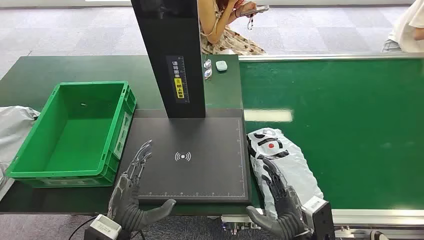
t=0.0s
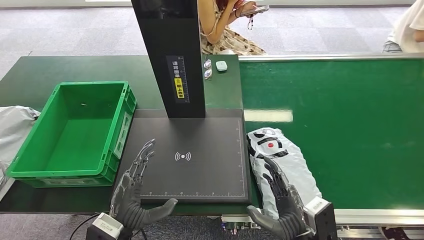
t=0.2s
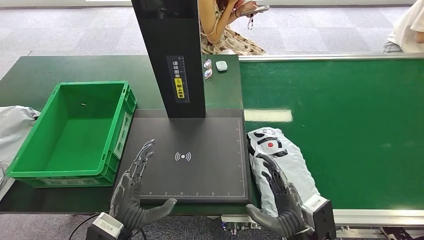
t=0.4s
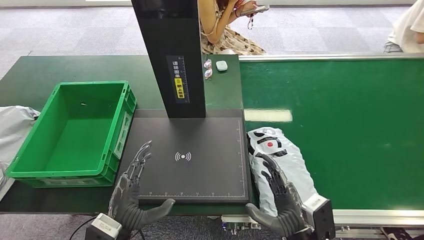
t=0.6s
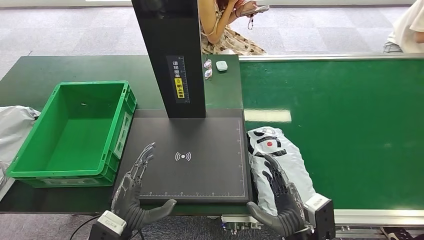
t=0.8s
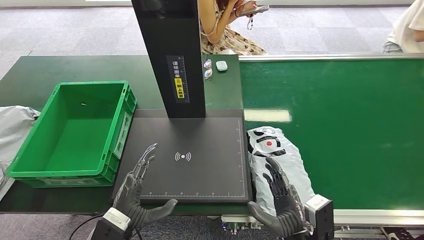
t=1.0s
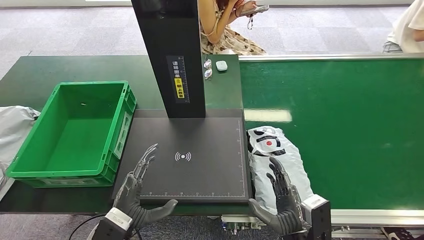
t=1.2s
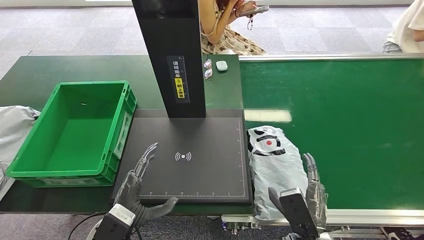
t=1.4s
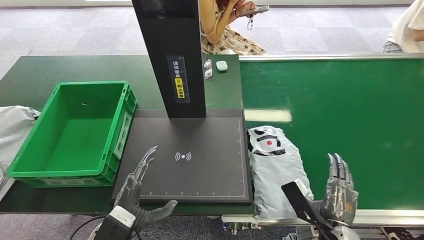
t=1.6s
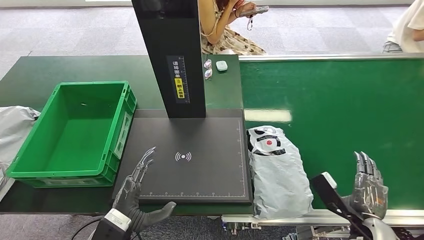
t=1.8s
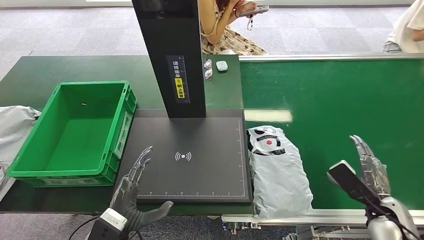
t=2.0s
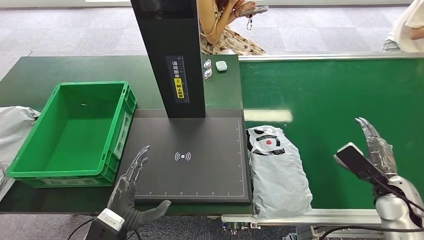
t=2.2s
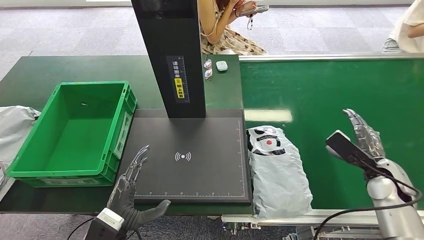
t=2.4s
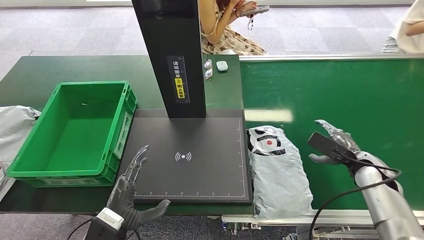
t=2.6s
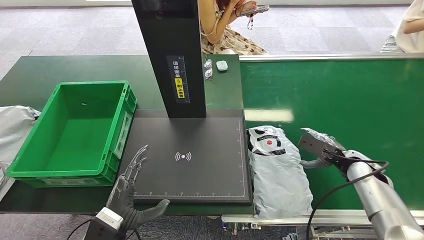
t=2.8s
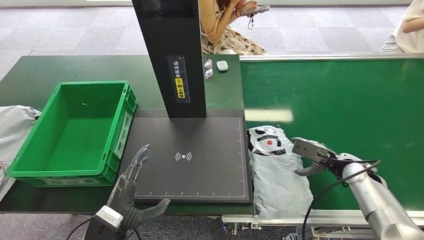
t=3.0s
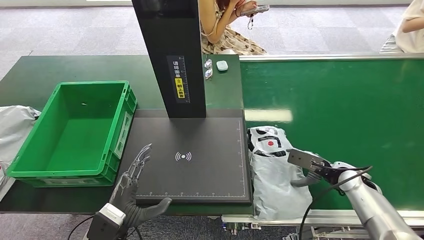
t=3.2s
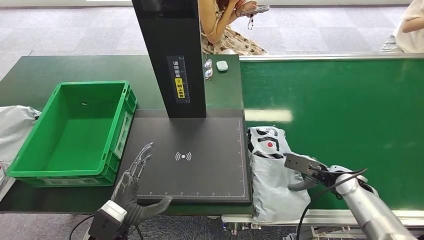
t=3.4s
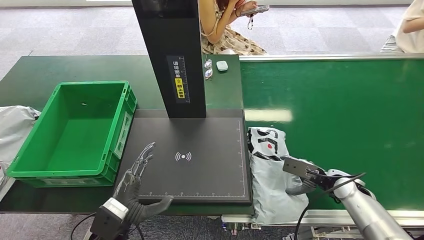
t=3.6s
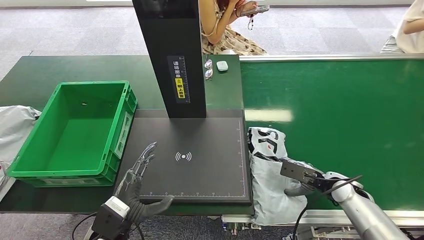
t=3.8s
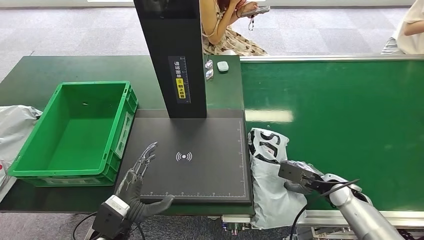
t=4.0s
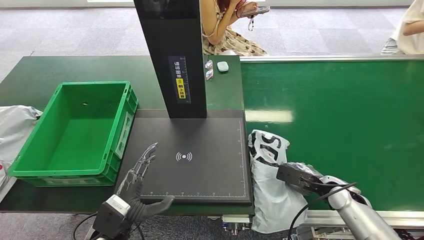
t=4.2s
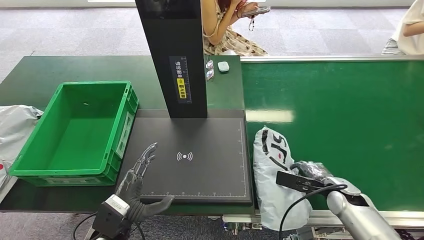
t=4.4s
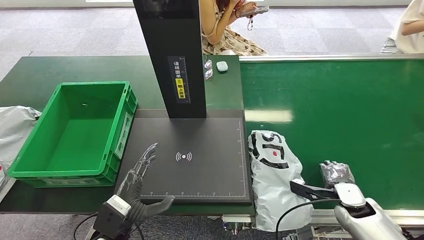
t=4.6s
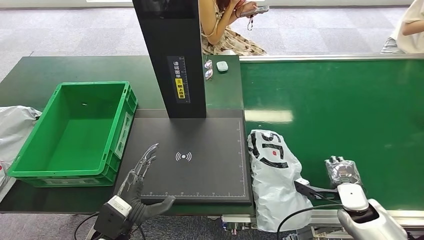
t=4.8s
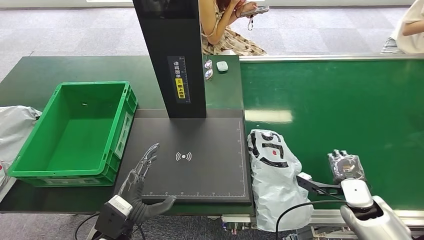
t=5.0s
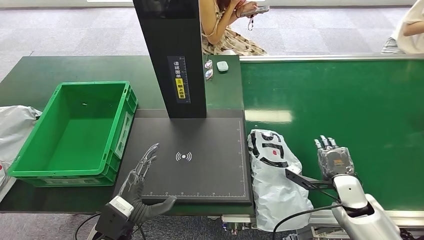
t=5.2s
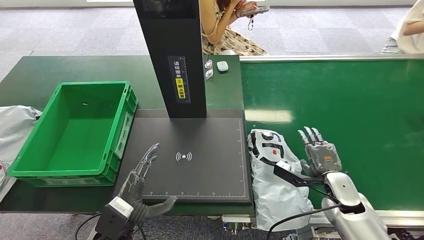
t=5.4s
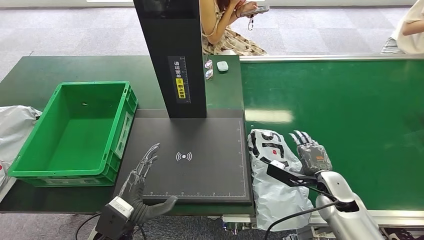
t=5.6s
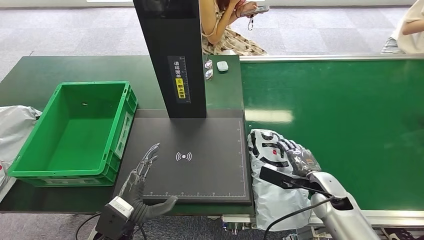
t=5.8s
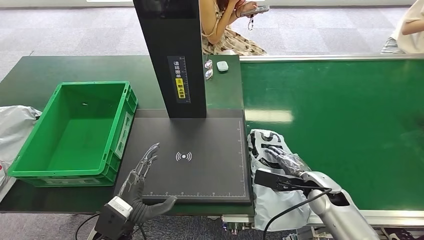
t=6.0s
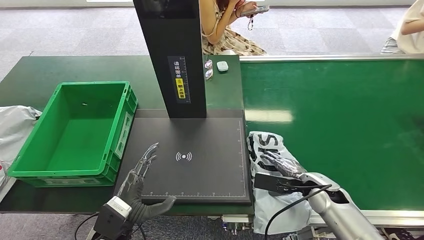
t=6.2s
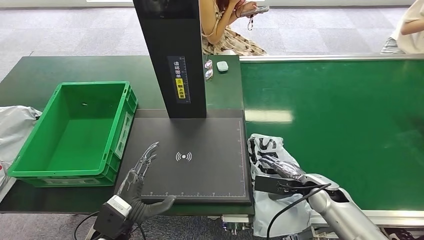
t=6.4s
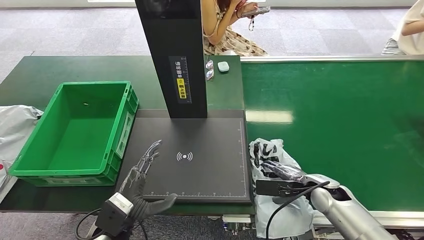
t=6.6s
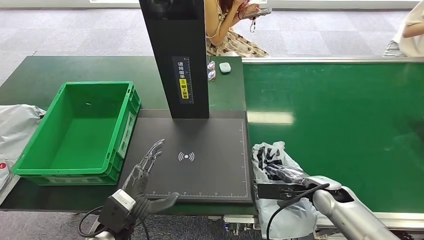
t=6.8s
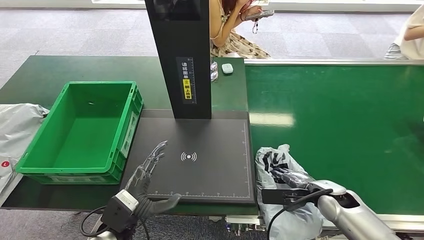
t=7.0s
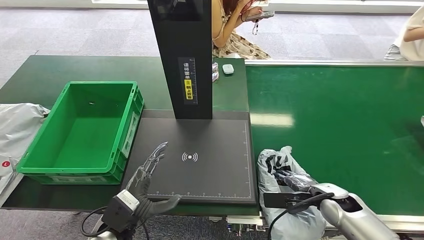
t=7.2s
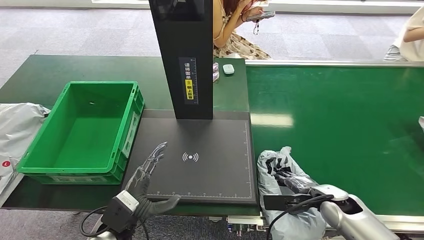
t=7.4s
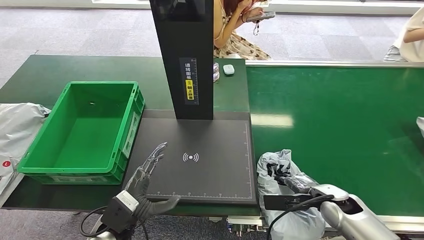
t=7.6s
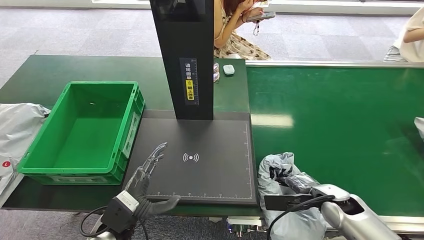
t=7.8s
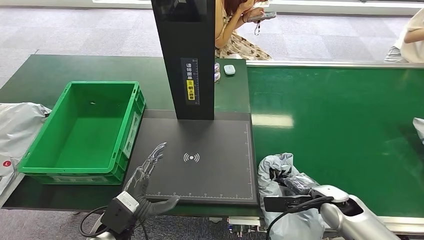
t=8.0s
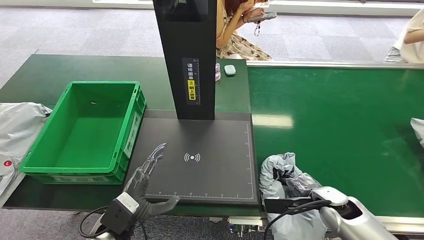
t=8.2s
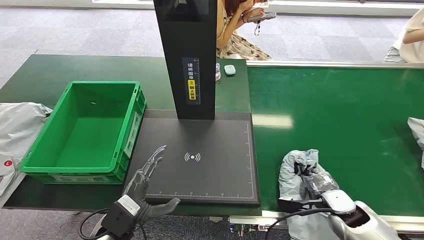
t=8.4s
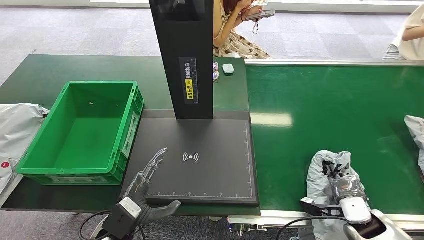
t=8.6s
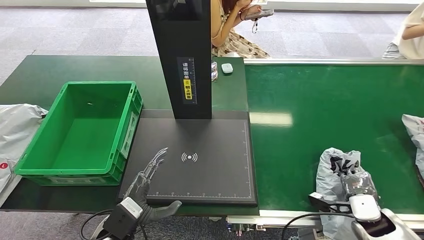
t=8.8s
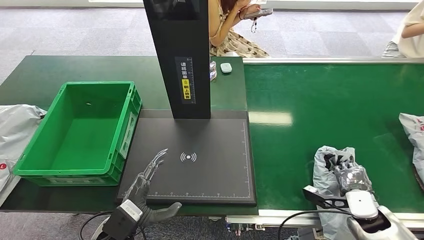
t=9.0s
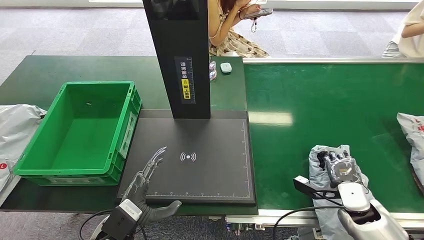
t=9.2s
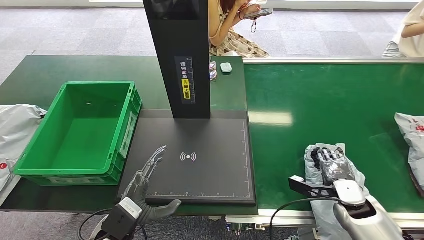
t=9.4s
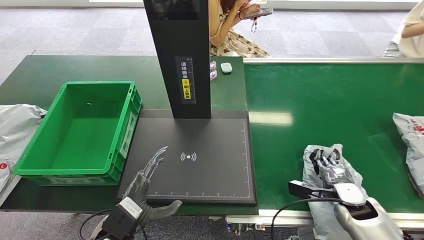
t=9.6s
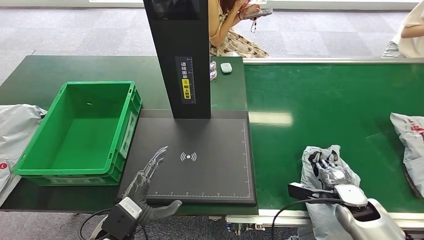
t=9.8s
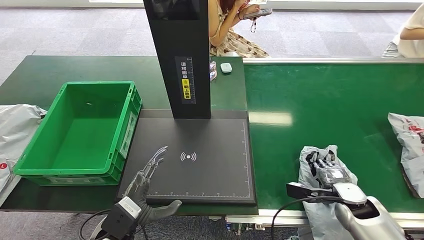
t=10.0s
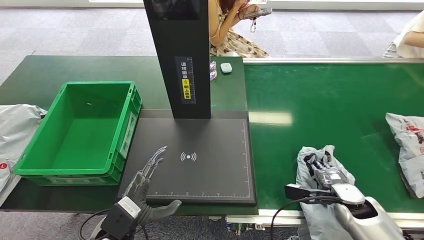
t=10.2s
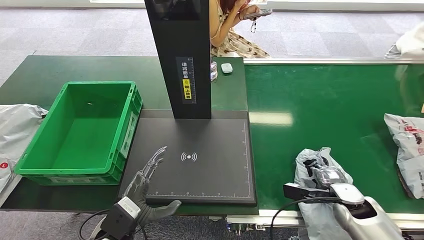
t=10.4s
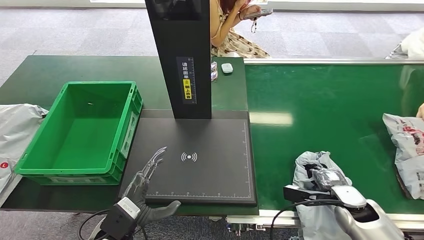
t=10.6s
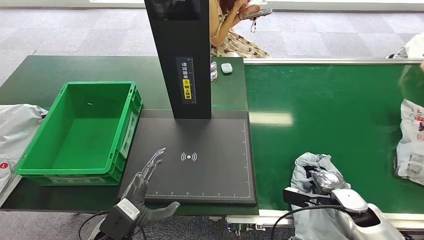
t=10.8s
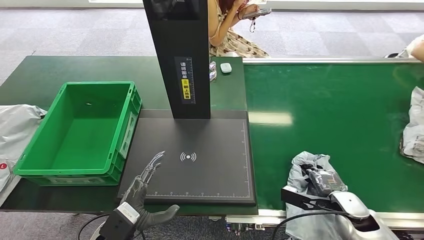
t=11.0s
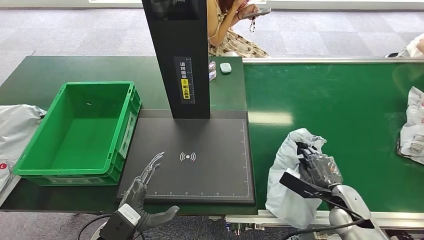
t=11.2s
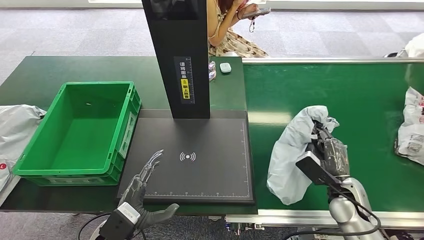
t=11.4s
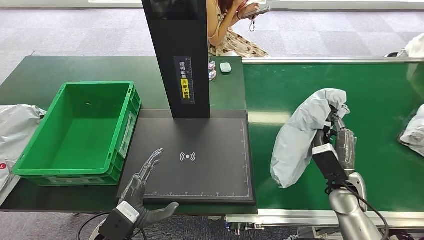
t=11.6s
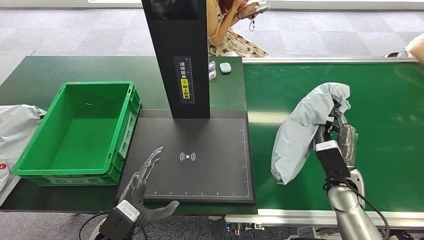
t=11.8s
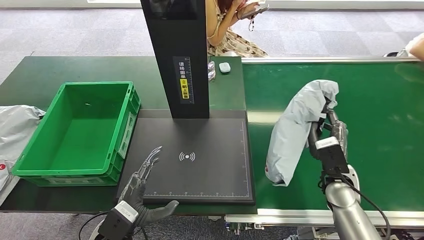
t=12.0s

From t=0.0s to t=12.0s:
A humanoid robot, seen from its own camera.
Step, from t=0.0s to t=11.8s: Pick up the package from the conveyor belt.
From t=1.6s to t=3.0s: The right hand travels forward and to the right by approximately 25 cm.
From t=3.0s to t=4.4s: The right hand is displaced backward by roughly 5 cm.
From t=4.4s to t=6.0s: The right hand heads to the left, covering approximately 5 cm.

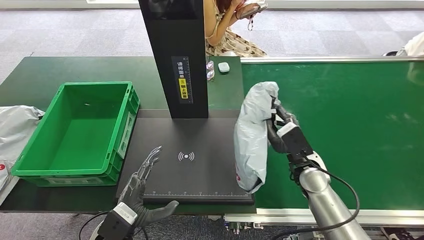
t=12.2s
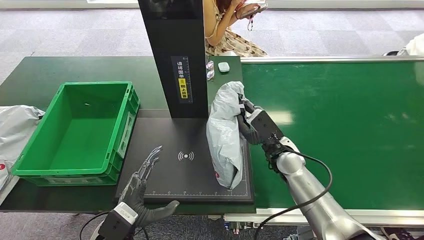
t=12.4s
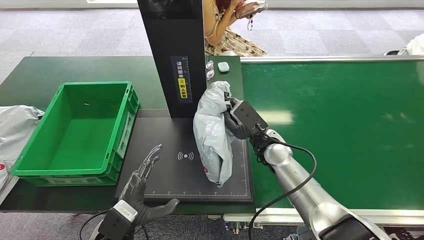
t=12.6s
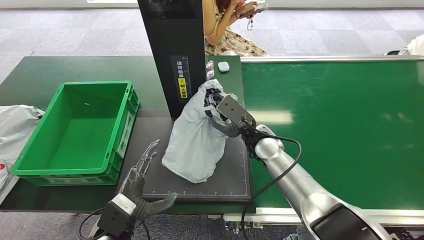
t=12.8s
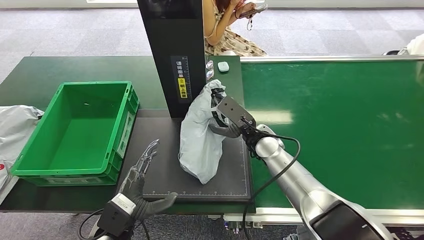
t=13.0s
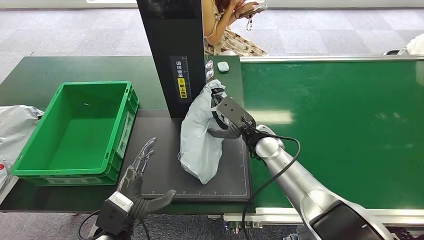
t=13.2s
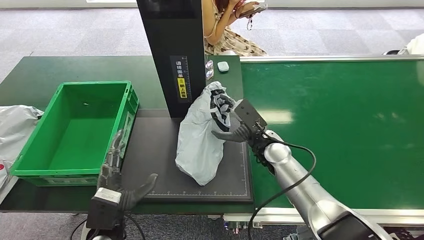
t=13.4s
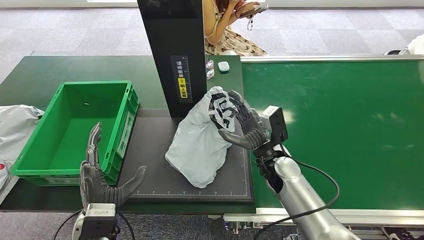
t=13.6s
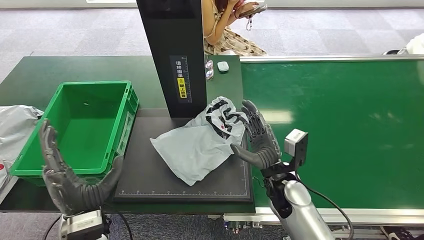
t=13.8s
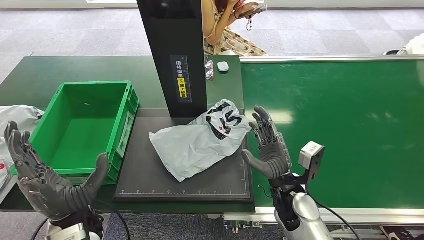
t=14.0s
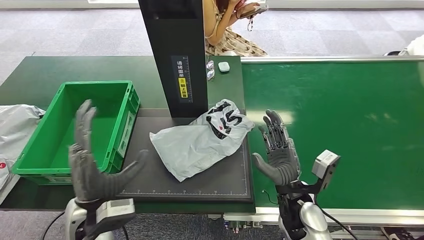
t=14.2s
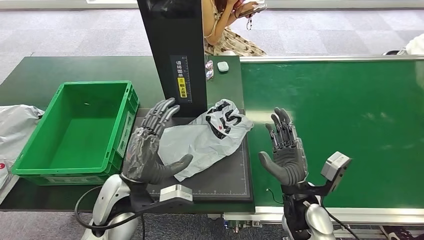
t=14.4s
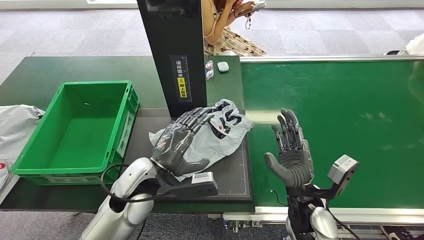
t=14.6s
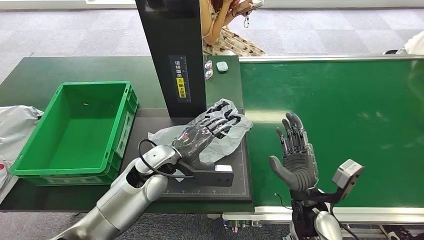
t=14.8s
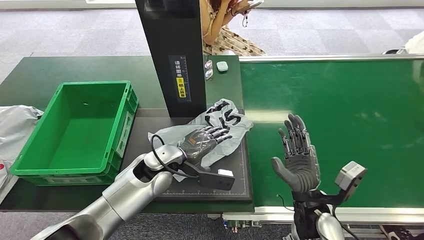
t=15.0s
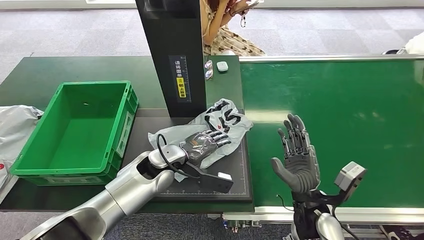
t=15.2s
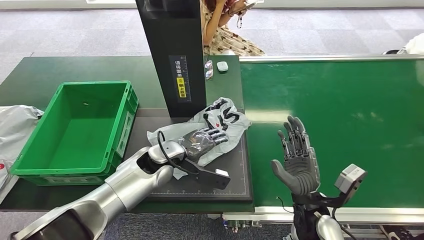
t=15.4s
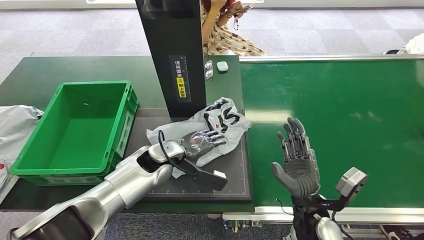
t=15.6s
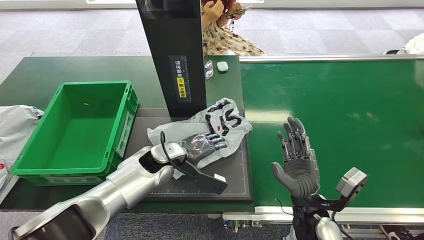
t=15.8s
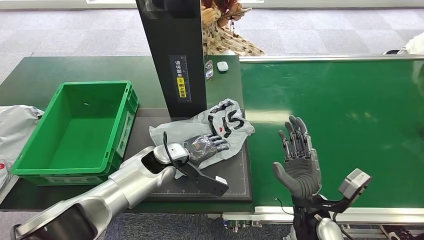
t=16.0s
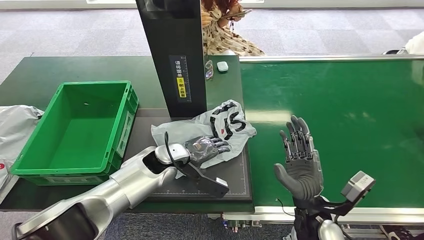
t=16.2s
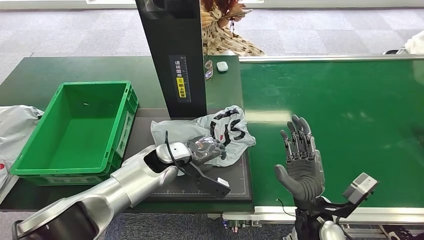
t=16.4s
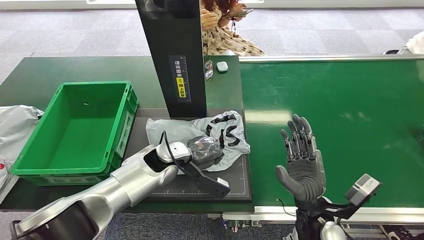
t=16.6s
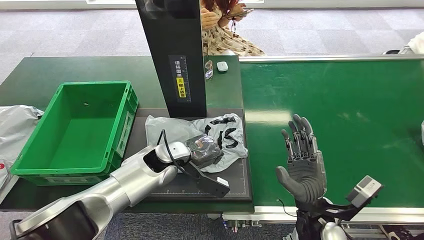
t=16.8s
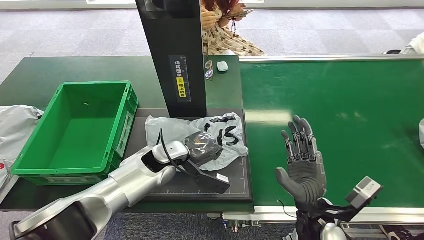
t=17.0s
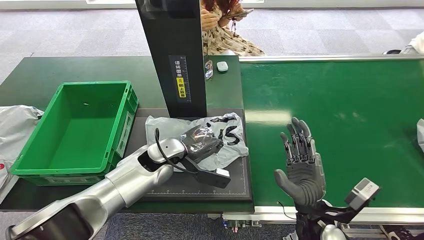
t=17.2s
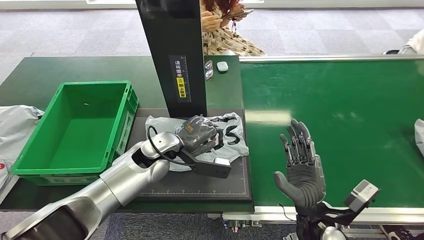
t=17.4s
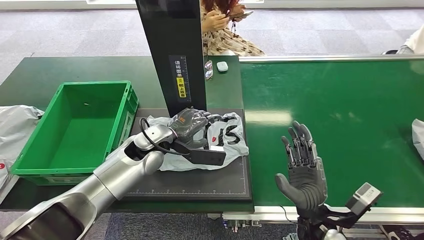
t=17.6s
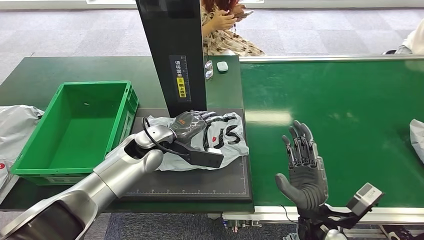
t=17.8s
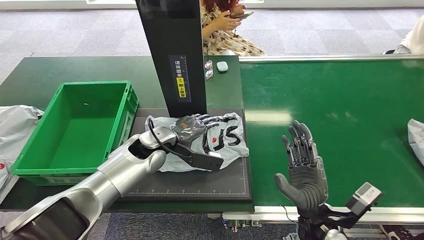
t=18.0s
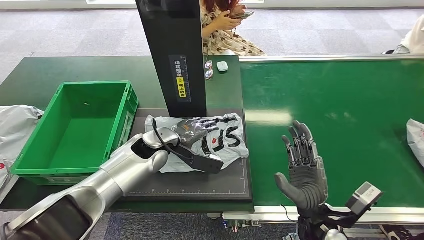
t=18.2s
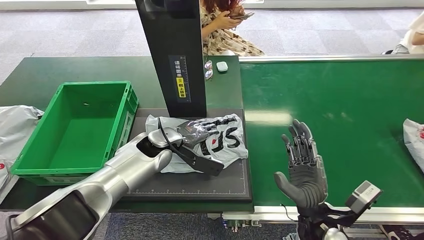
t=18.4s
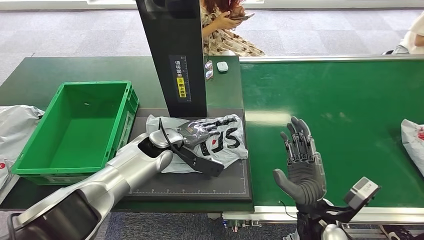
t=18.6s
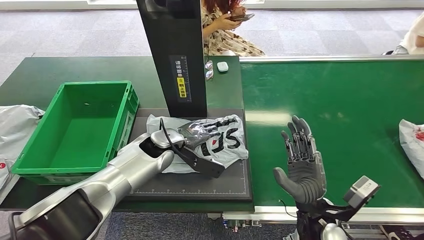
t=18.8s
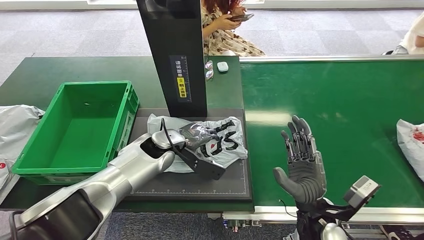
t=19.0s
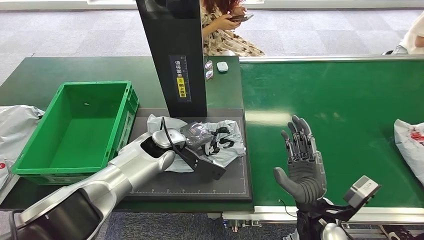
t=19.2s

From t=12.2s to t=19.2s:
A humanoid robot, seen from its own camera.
Step, from t=12.2s to t=13.8s: Place the package onto the inbound machine.
From t=16.4s to t=17.8s: The left hand shifts by roughly 5 cm.
